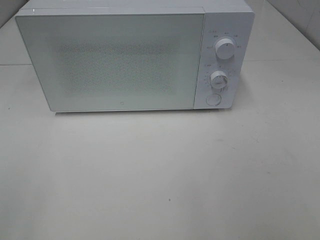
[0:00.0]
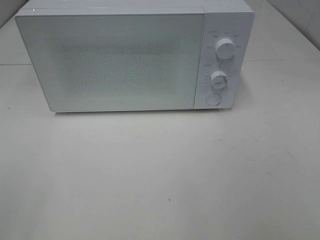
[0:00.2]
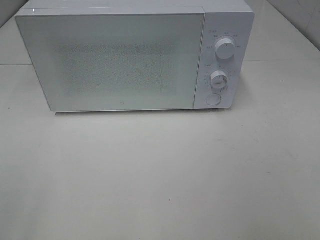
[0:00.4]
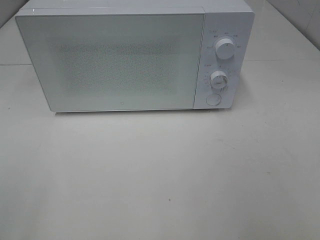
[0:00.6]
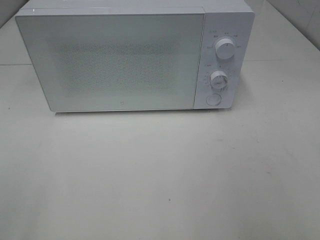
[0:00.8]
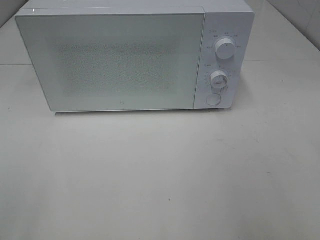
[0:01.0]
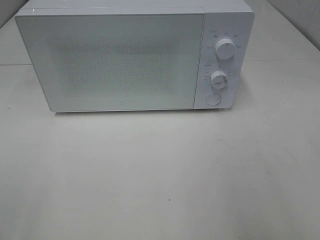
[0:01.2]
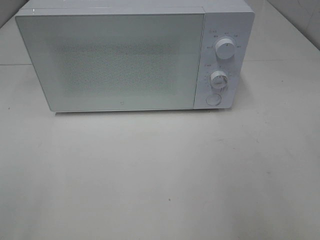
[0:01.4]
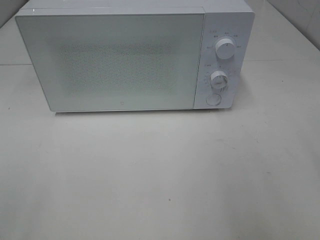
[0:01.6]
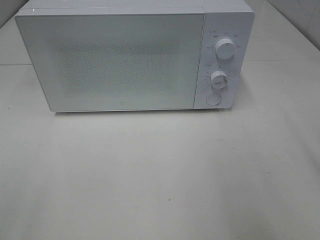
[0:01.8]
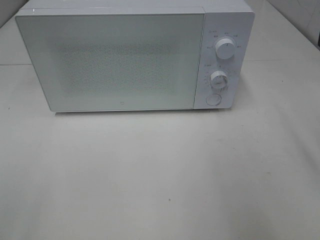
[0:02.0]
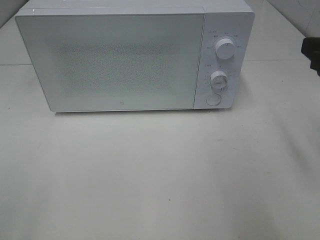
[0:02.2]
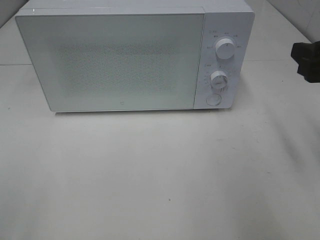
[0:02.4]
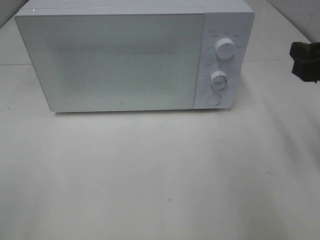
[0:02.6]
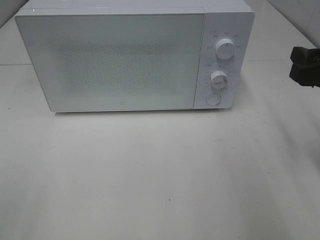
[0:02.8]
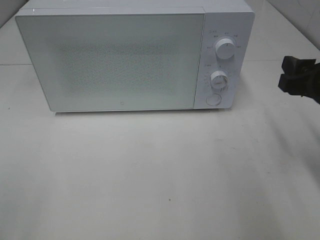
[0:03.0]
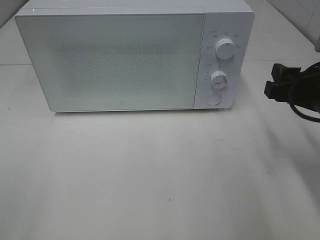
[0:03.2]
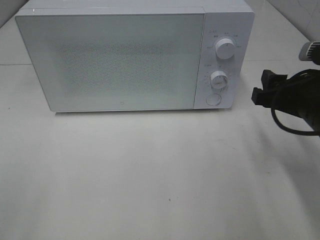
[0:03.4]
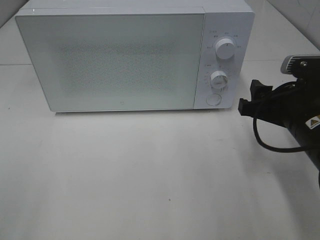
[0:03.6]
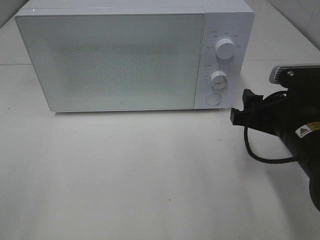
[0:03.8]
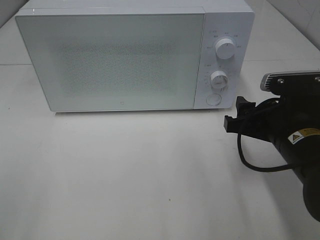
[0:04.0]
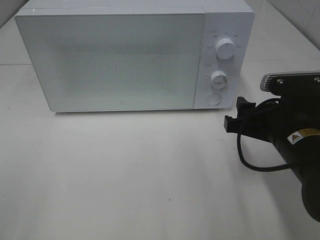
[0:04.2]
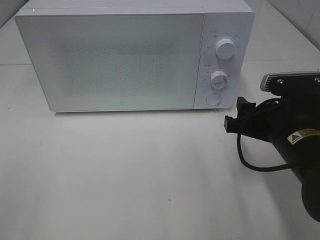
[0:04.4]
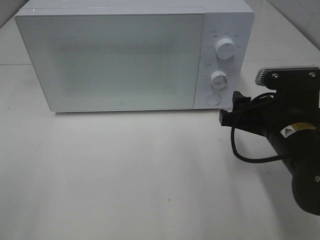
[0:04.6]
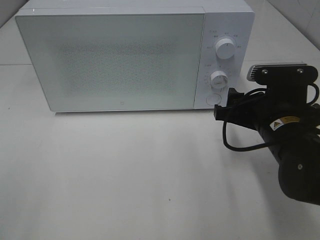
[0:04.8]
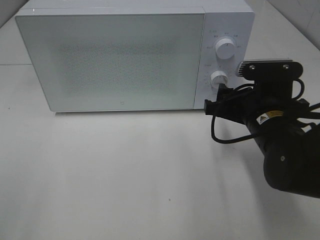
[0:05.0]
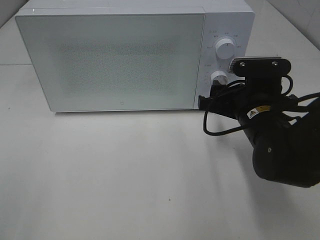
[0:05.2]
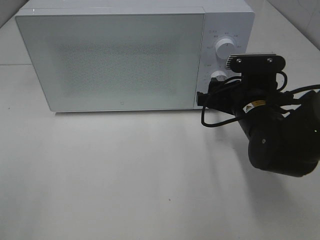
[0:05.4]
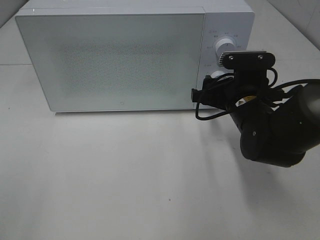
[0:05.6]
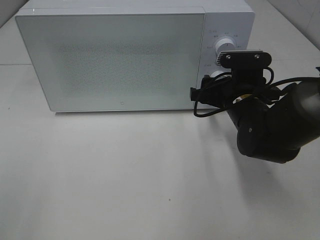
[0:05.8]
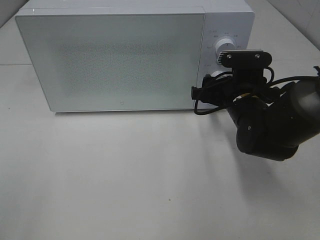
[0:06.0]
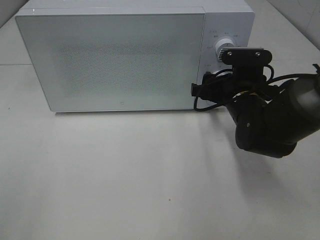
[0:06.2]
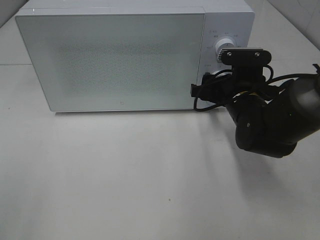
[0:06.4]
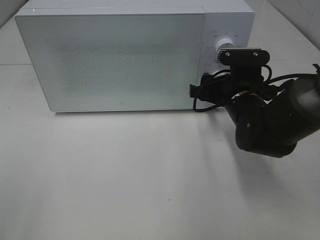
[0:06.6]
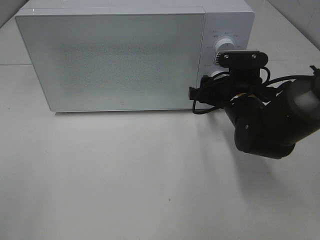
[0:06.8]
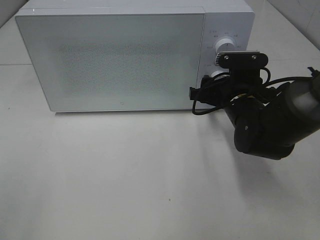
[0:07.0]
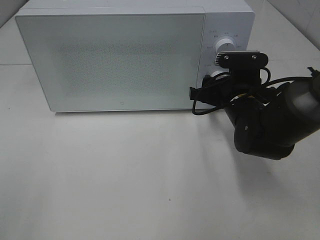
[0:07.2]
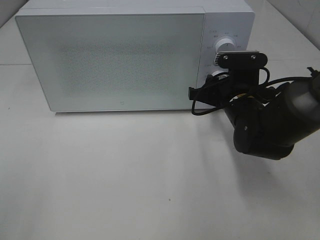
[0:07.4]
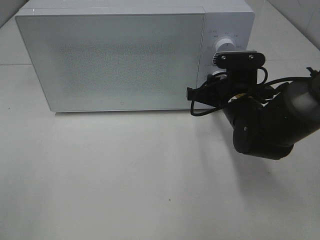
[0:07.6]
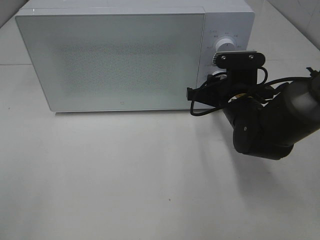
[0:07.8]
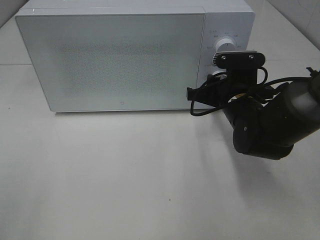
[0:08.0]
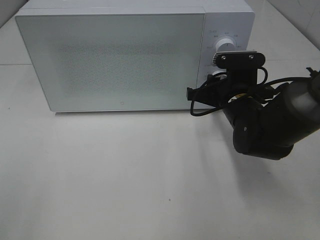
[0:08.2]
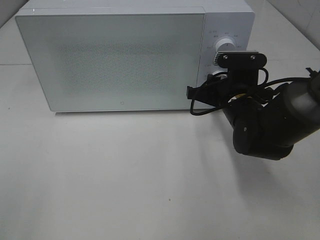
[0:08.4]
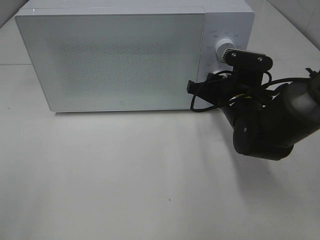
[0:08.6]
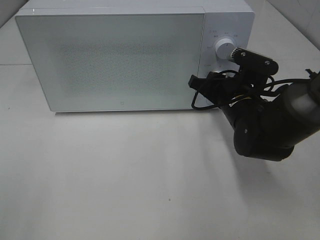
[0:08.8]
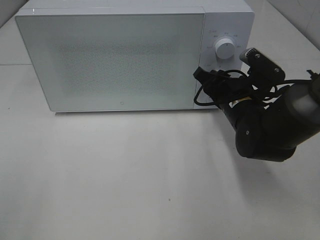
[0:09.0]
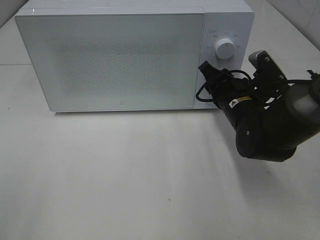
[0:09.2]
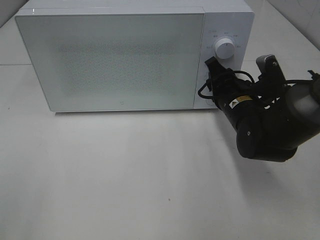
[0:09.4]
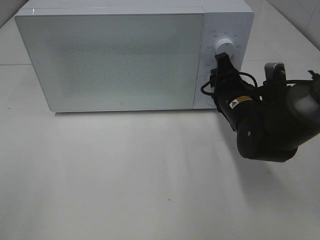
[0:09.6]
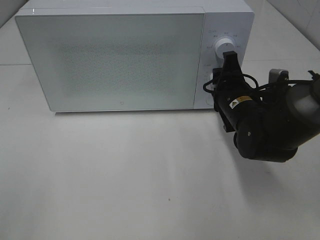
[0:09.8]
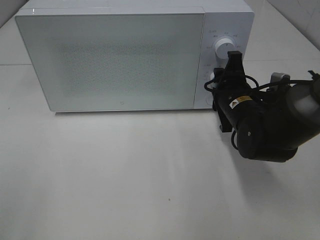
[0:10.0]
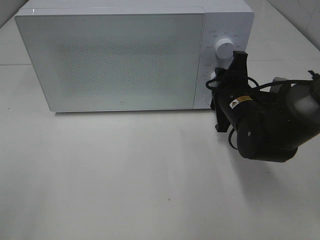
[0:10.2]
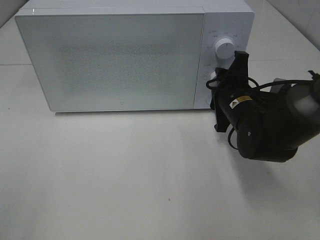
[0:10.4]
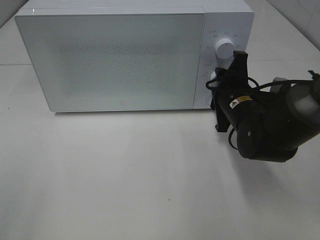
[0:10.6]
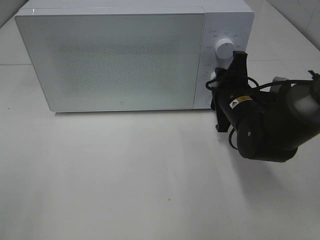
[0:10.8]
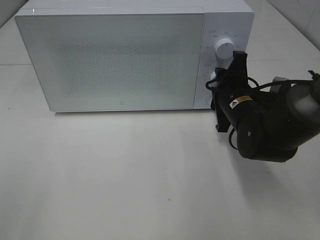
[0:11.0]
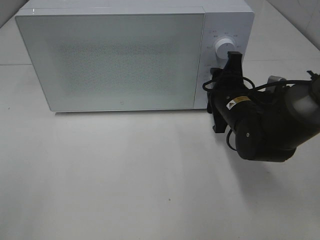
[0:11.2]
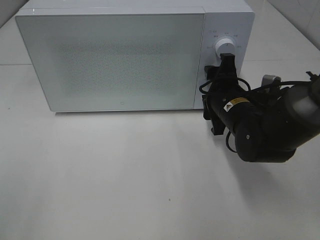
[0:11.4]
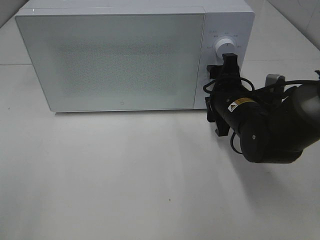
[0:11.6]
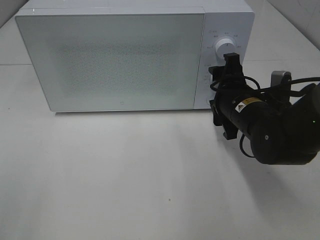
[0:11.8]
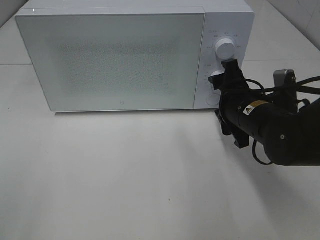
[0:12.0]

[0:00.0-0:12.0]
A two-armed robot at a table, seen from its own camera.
Task of the whole recording: Heat Sandwich.
Step, 0:00.0 to 0:11.2: Right hand: twist timer button.
0:01.6 to 0:03.0: The right gripper moves downward and forward, roughly 15 cm.
0:03.0 to 0:04.4: The right gripper goes about 10 cm to the left and downward.
0:04.4 to 0:06.0: The right gripper heads forward, covering about 10 cm.
0:06.0 to 0:07.6: The right gripper closes its fingers.

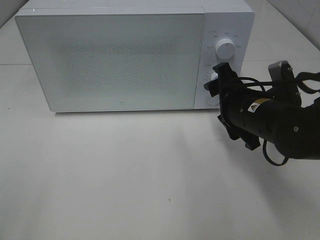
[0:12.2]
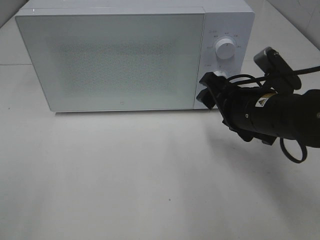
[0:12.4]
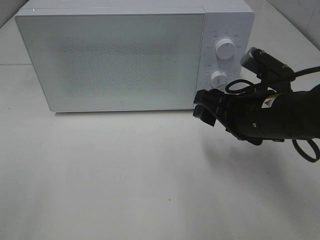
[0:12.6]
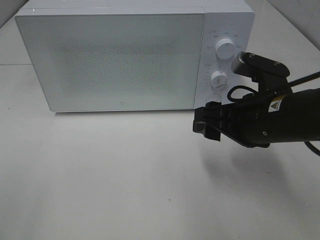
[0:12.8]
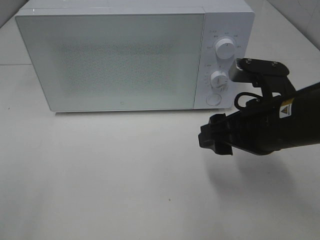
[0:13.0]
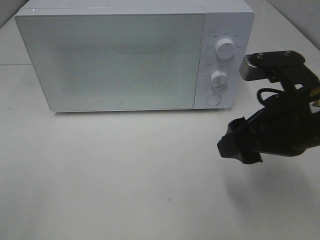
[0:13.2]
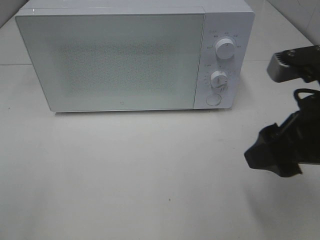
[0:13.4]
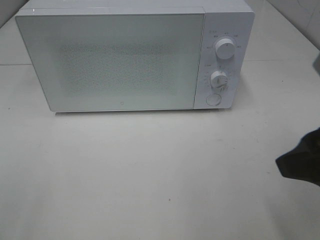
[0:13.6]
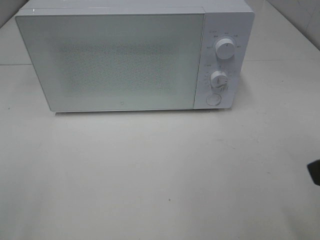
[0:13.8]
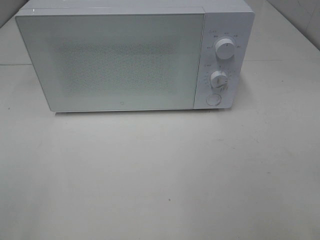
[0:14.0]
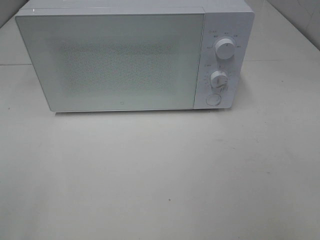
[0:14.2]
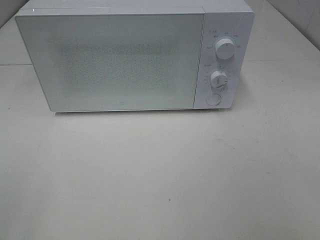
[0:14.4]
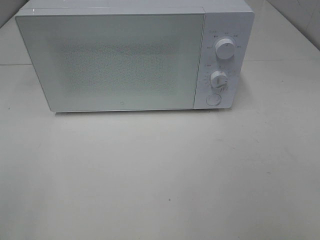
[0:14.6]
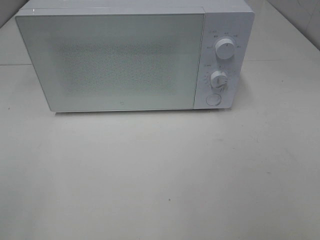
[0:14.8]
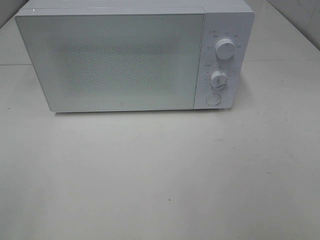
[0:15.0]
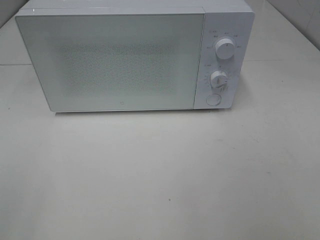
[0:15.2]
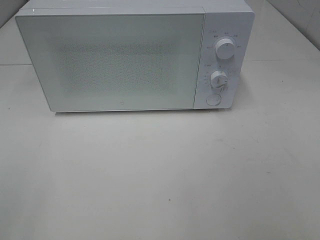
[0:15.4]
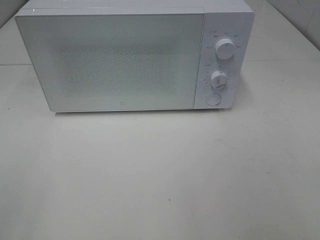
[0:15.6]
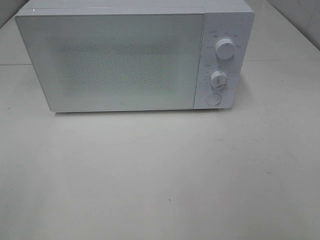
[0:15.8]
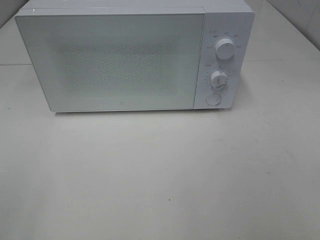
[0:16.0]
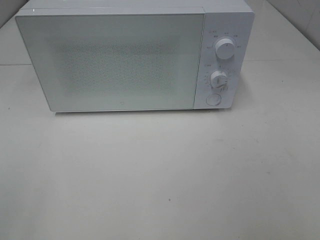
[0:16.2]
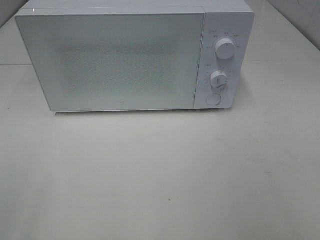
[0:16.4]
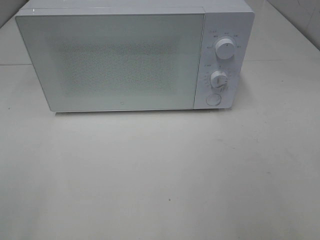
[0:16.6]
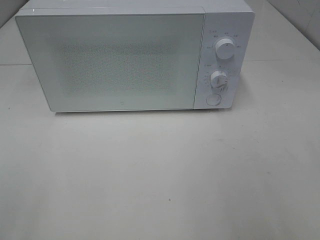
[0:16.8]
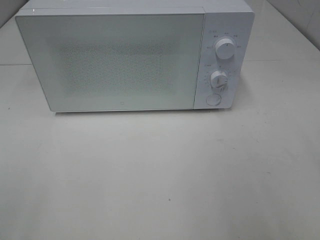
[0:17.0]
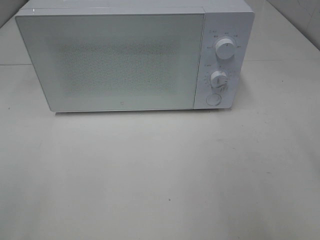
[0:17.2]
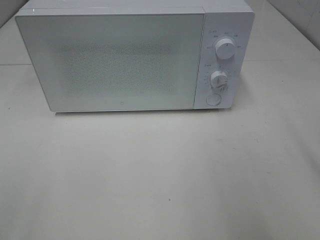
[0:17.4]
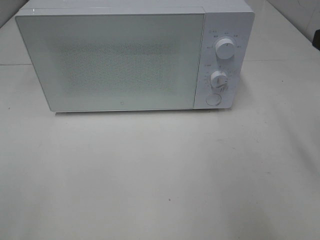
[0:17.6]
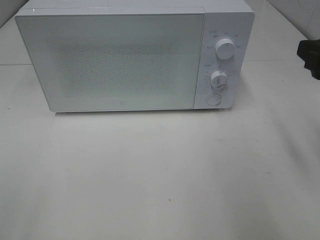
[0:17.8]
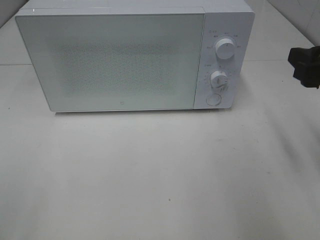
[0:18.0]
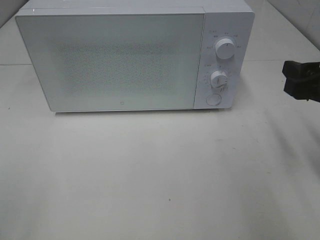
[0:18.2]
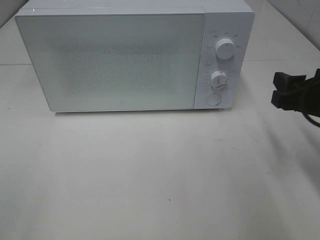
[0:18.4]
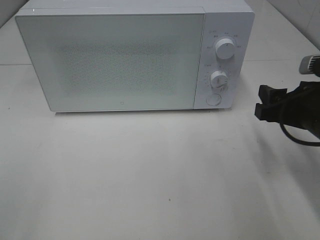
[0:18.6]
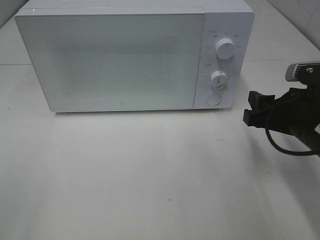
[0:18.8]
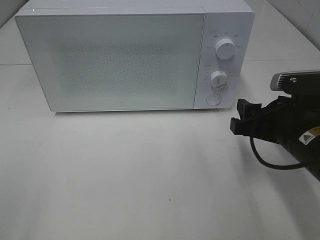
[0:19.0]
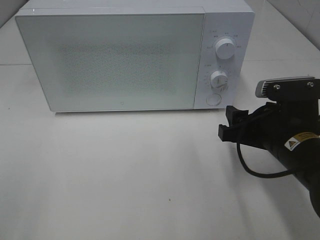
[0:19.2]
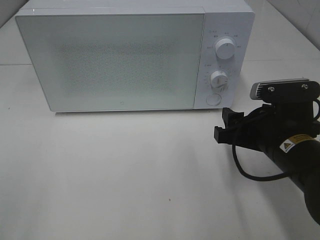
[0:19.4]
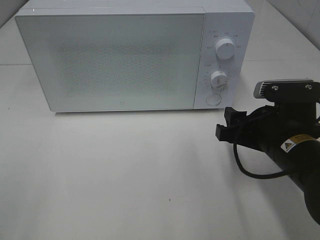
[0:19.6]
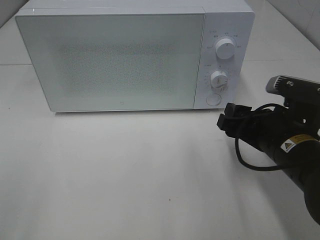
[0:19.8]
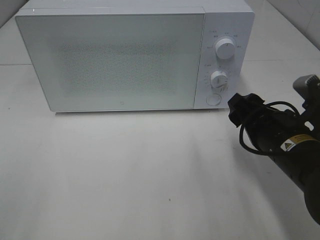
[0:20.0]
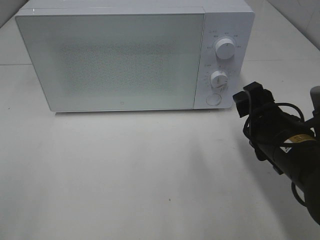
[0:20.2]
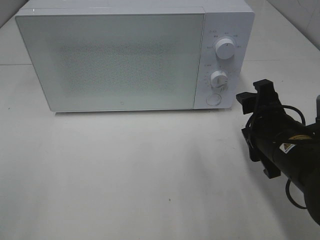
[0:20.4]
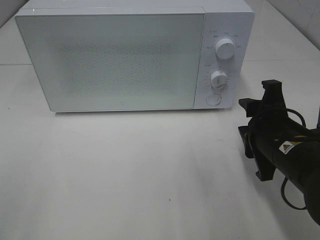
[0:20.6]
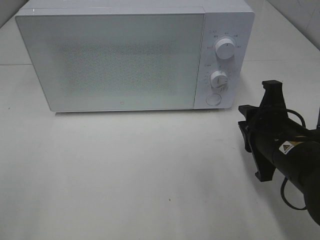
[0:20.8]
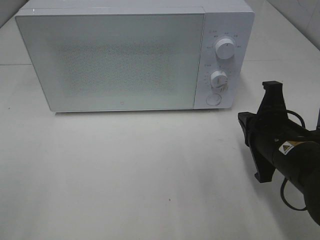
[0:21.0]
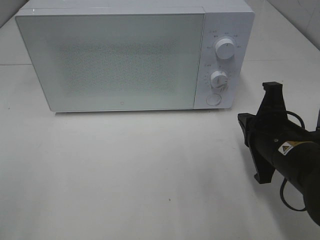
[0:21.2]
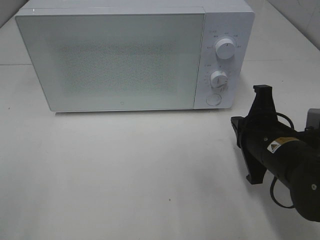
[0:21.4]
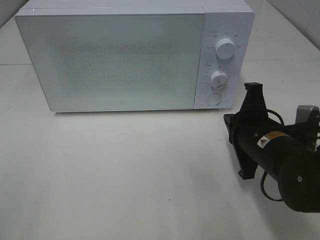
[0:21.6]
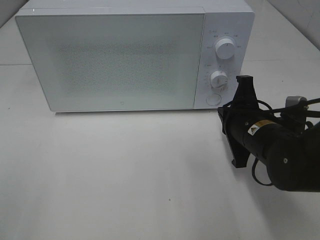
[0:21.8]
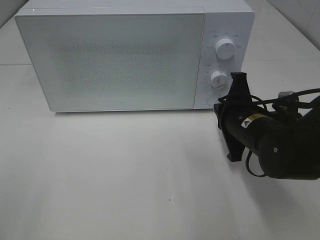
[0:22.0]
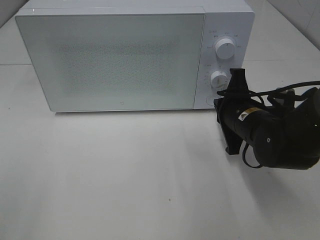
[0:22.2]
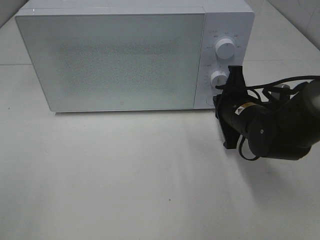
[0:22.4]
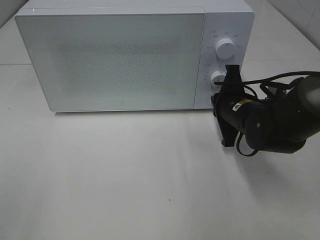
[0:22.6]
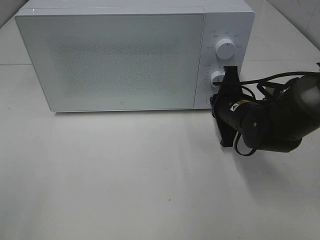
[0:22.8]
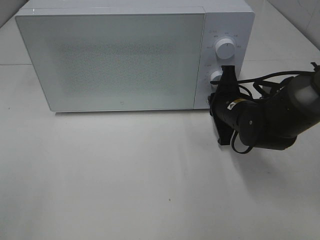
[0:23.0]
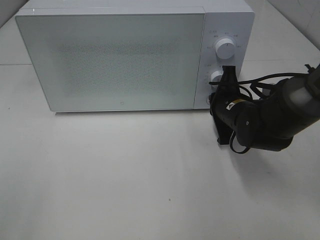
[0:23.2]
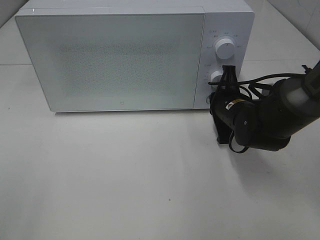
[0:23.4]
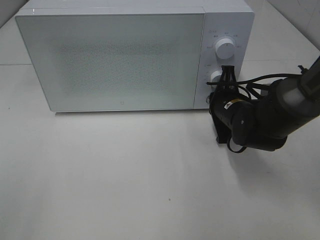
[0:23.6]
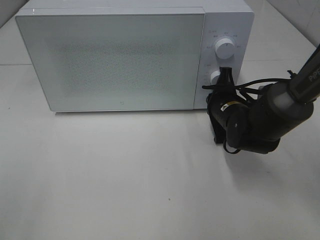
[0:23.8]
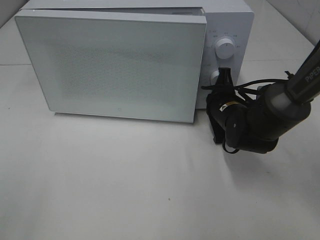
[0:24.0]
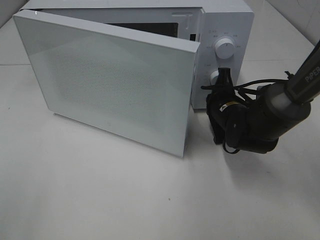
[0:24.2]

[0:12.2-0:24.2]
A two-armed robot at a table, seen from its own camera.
Task of the whole recording: Heat Sandwich.
0:12.2 to 0:13.8: The right gripper moves backward, upward and to the right, approximately 25 cm.
0:16.6 to 0:18.2: The right gripper goes approximately 20 cm forward and downward.
0:18.2 to 0:19.8: The right gripper goes roughly 10 cm to the left and downward.
0:19.8 to 0:21.2: The right gripper closes.
0:21.2 to 0:22.6: The right gripper travels forward by roughly 10 cm.
0:22.6 to 0:24.2: The grippers make only small movements.
